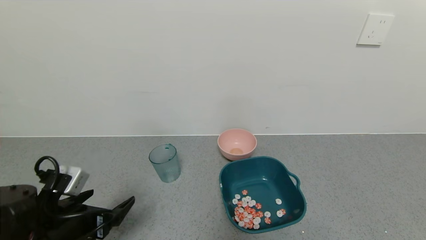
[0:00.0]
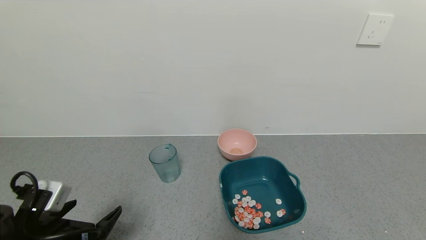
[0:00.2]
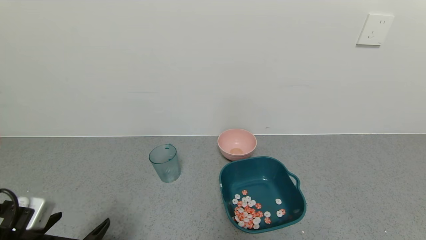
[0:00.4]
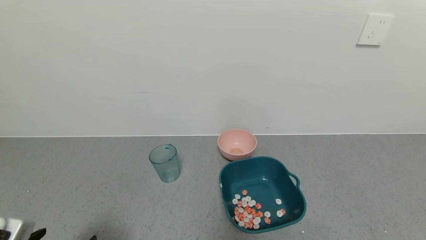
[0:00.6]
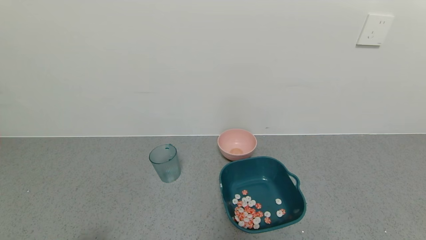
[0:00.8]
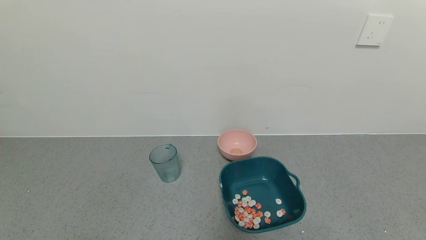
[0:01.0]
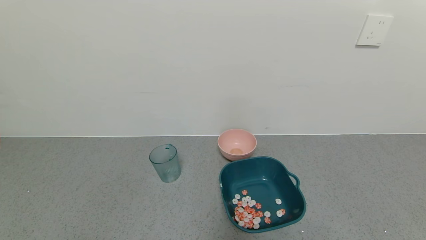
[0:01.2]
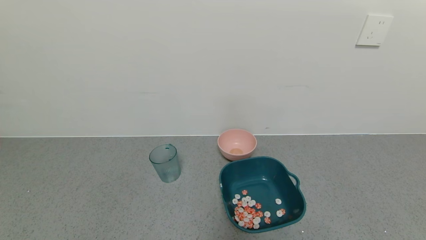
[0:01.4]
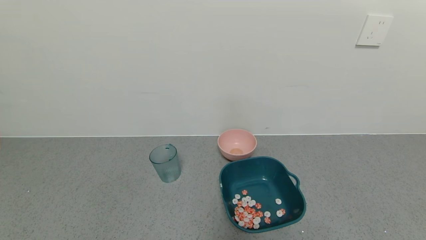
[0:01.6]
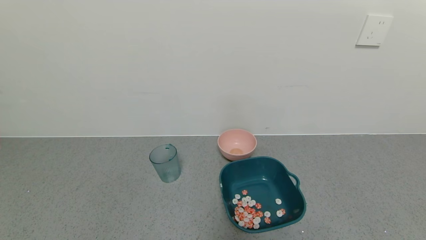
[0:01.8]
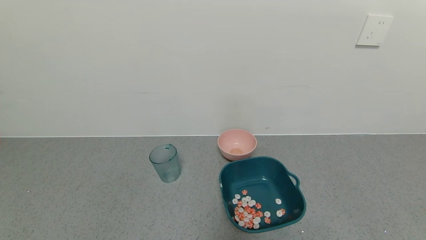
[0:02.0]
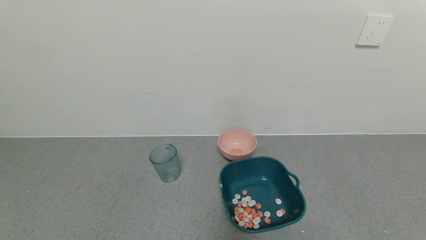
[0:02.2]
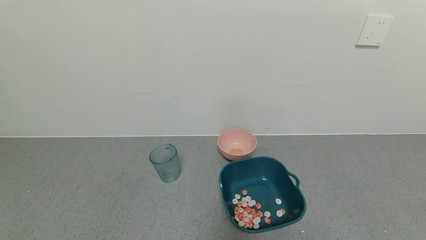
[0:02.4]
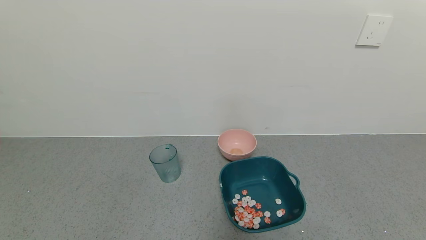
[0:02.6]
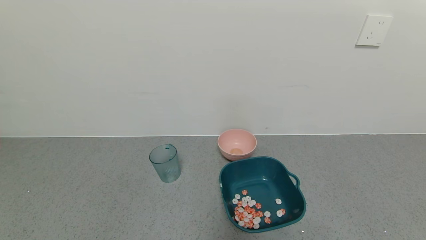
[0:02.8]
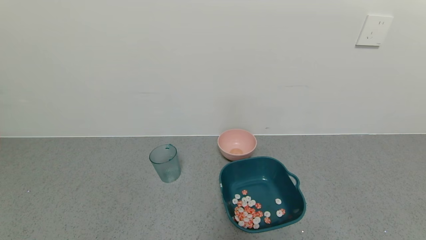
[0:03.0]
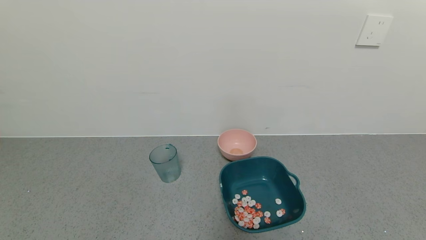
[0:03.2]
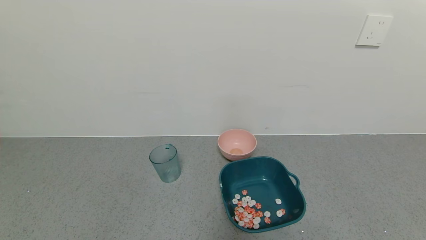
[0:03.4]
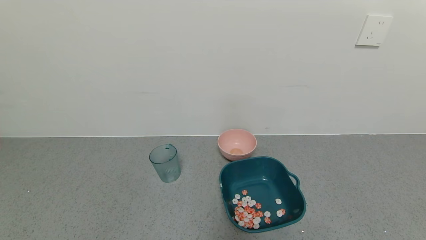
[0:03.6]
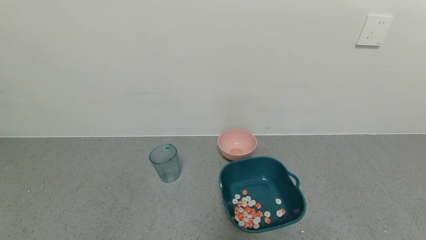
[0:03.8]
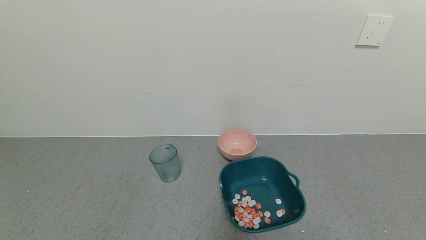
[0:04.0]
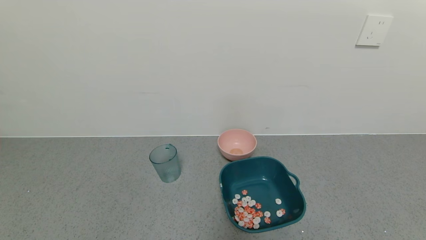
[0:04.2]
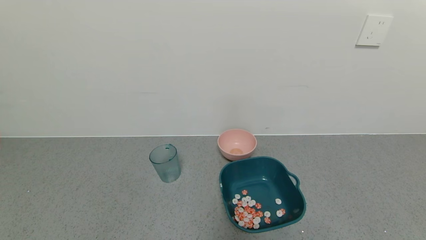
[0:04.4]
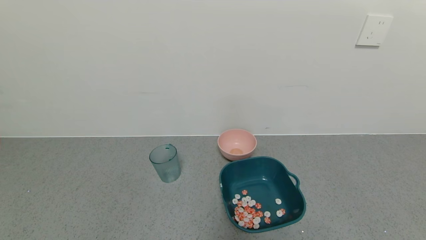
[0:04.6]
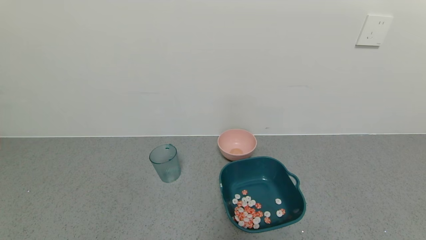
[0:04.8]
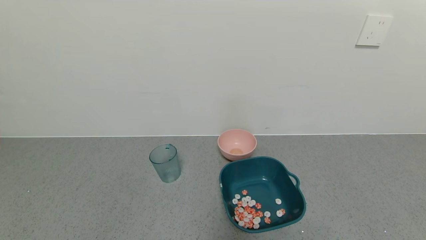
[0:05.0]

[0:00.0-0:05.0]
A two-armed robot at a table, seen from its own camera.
Task of the whole recording: use a gripper to pick up the cup and pour the solid into a bowl or tray.
0:00.0 to 0:01.6: The left gripper shifts about 15 cm backward.
0:03.4 to 0:05.0: Both grippers stay put.
